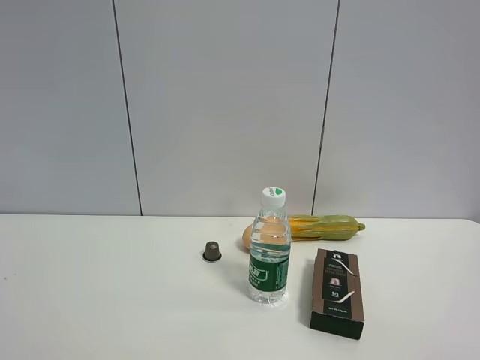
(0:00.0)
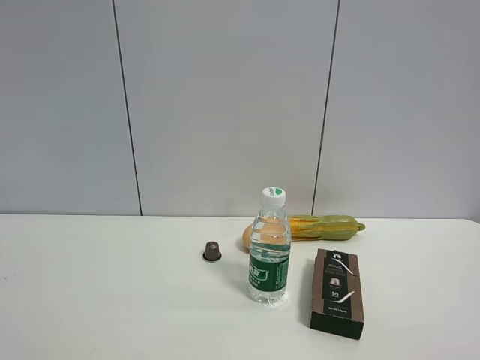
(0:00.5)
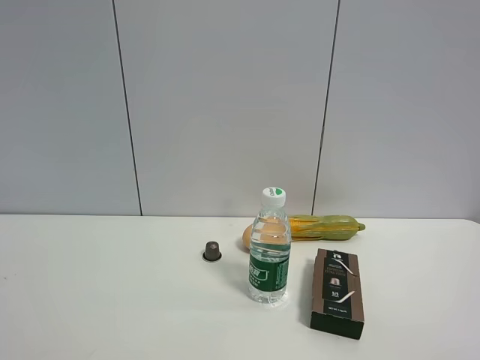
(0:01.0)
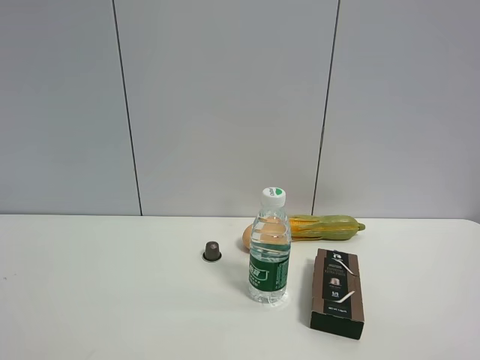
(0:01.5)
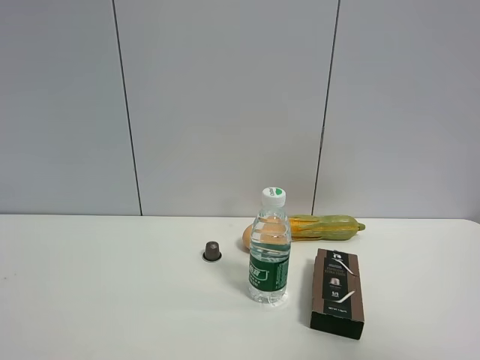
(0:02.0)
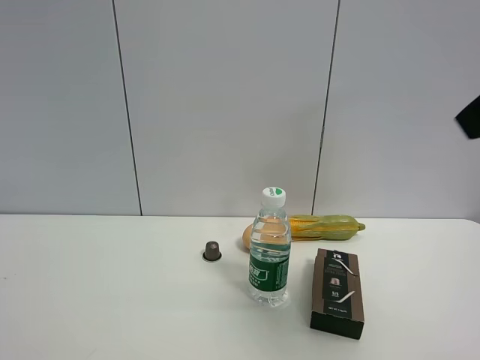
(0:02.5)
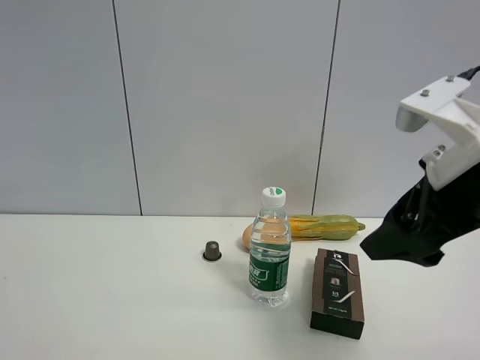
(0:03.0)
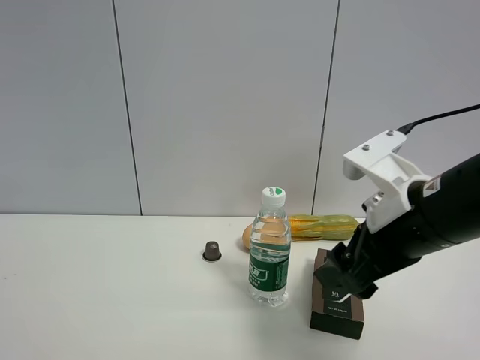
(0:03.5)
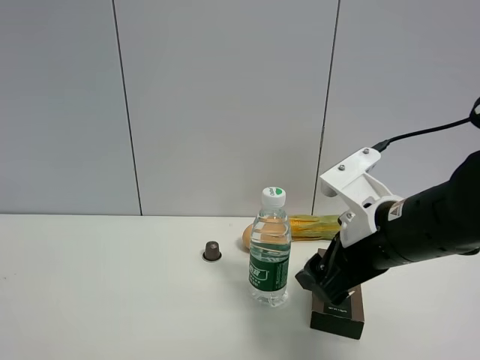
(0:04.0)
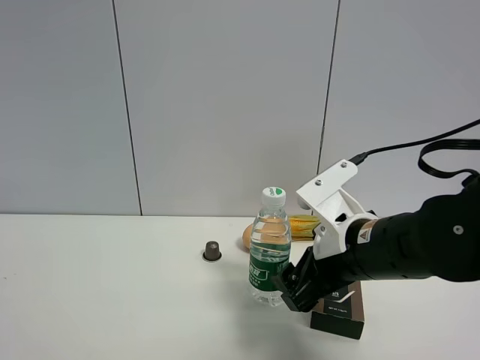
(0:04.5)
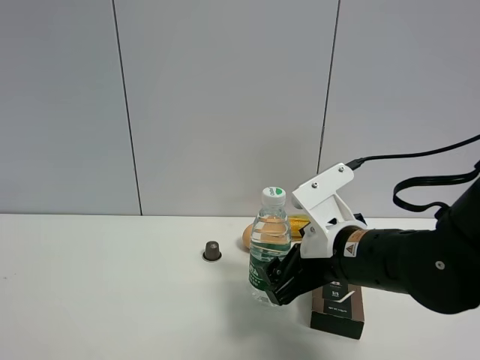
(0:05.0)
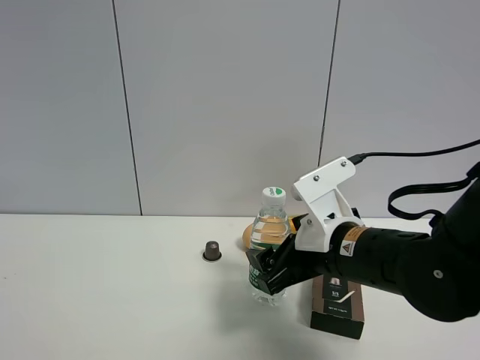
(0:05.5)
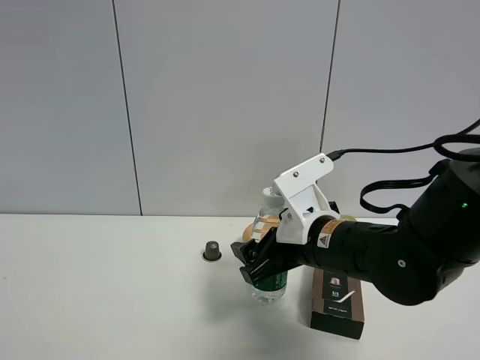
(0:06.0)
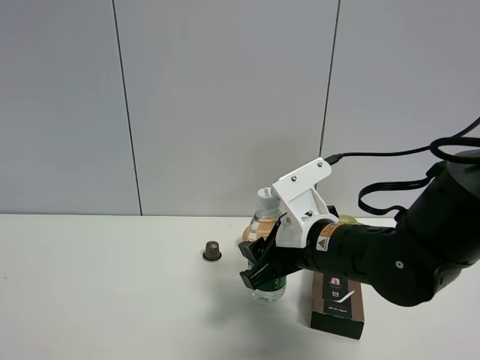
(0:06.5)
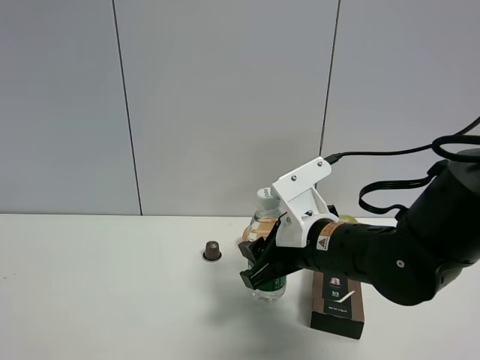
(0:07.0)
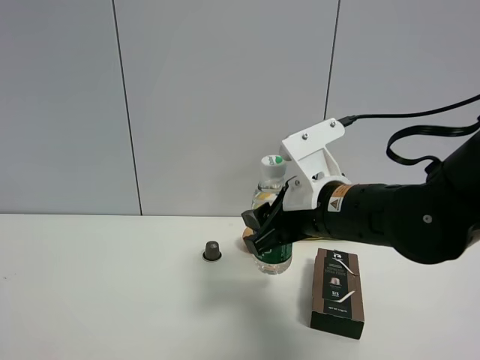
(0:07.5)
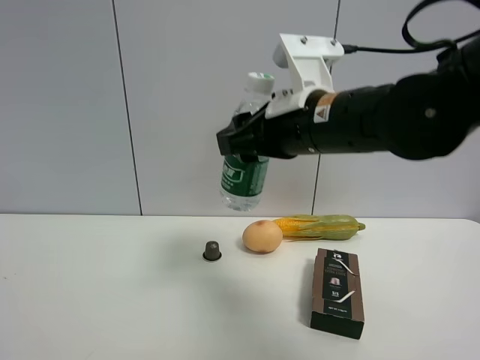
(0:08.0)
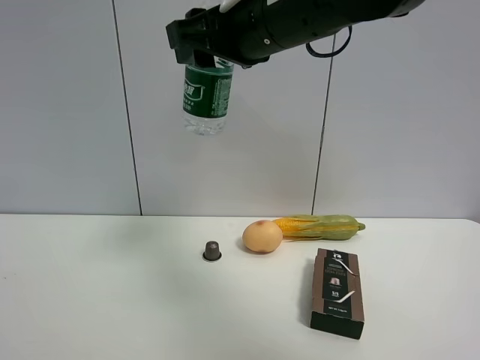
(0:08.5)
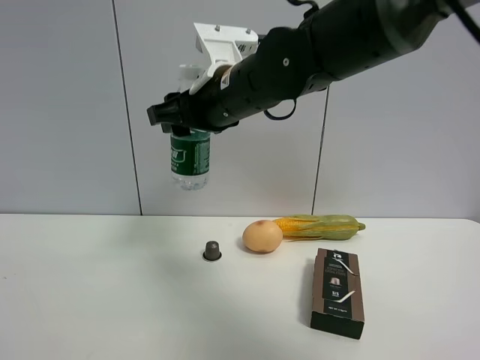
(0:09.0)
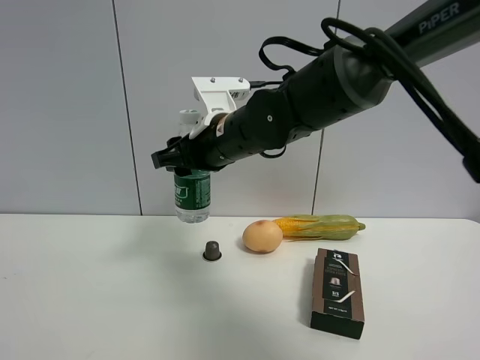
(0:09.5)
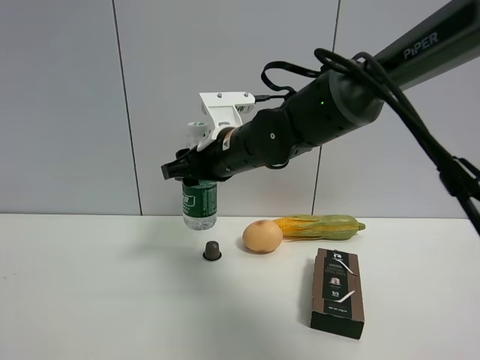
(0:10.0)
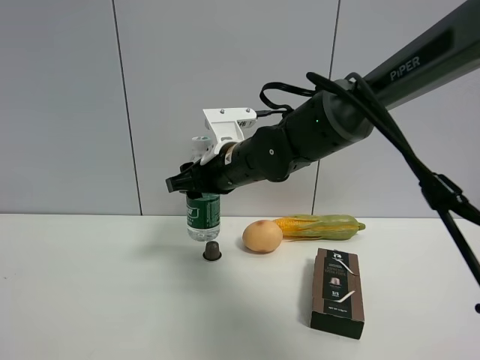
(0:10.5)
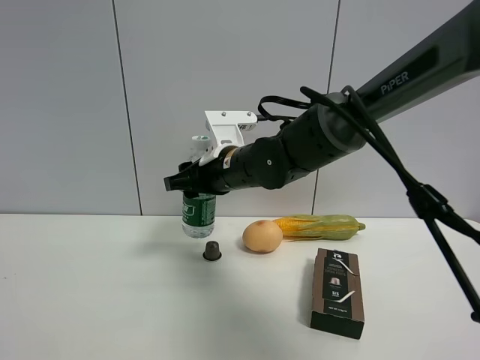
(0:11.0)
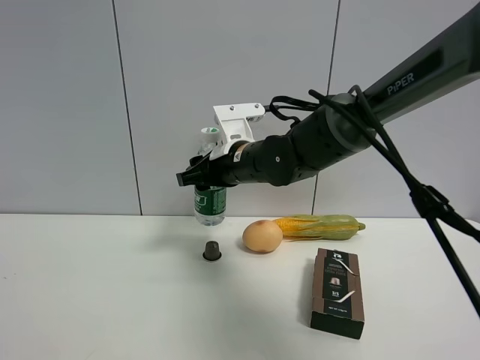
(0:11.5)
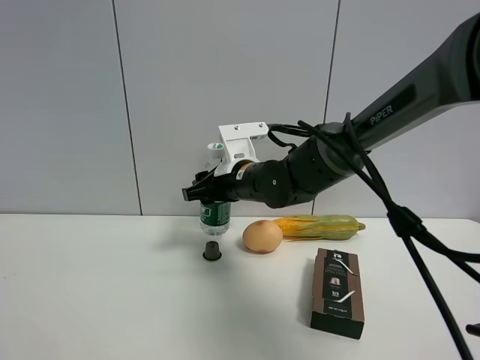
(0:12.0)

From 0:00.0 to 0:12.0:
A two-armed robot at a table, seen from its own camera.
Task of the whole recording: the gripper move the object.
Step, from 0:00.0 to 0:06.5: Grasp the YiBao mineral water with the right gripper.
From 0:00.0 to 0:02.0: The right gripper moves upward and forward, about 10 cm.
From 0:02.0 to 0:04.0: The right gripper is displaced downward, forward and to the left by about 30 cm.
From 0:04.0 to 0:06.0: The right gripper is displaced to the left by some 5 cm.
From 0:06.0 to 0:08.0: The right gripper is displaced upward by roughly 15 cm, and closes.
From 0:08.0 to 0:10.0: The right gripper moves forward, to the left and downward, approximately 15 cm.
From 0:10.0 to 0:12.0: The right gripper shifts approximately 5 cm downward.

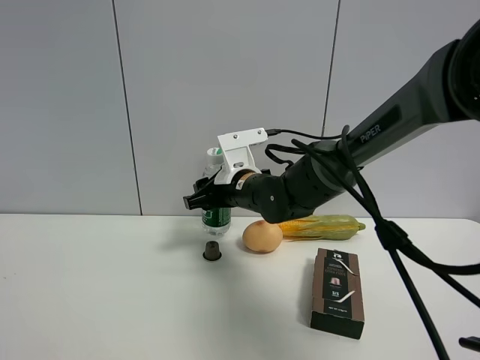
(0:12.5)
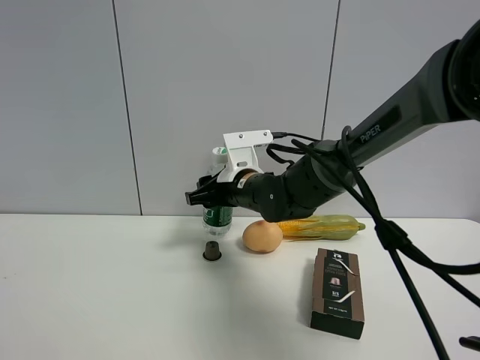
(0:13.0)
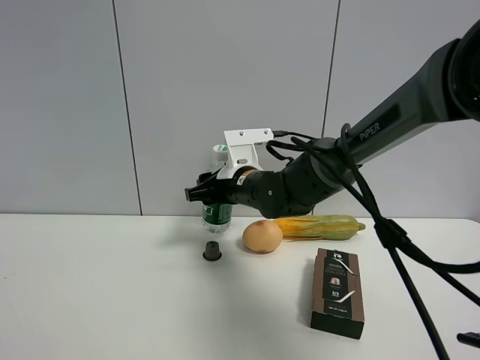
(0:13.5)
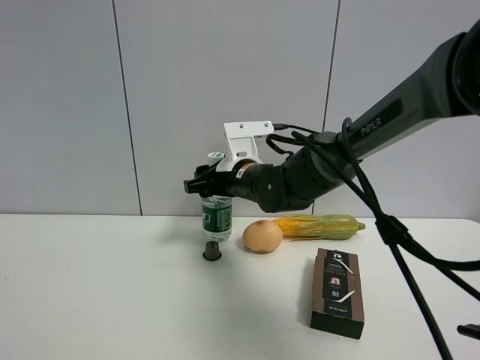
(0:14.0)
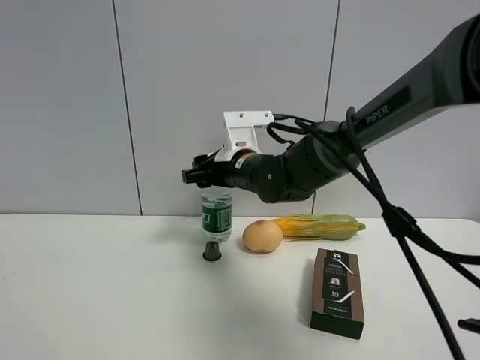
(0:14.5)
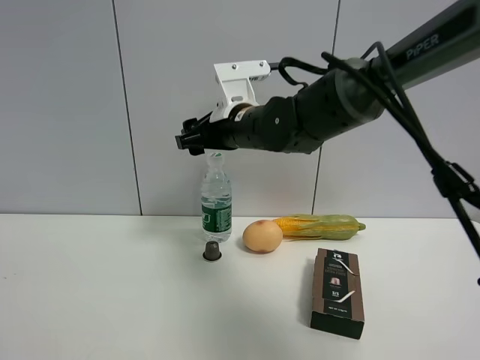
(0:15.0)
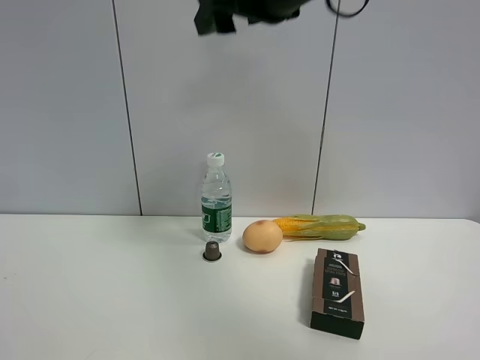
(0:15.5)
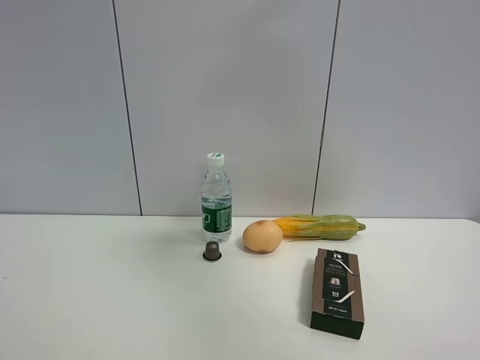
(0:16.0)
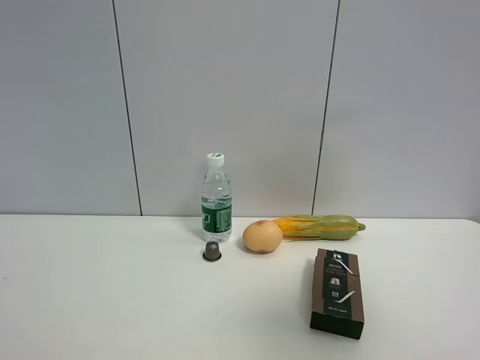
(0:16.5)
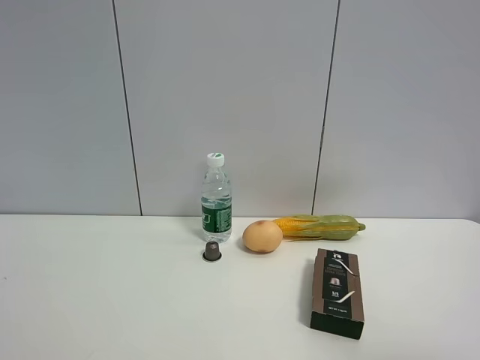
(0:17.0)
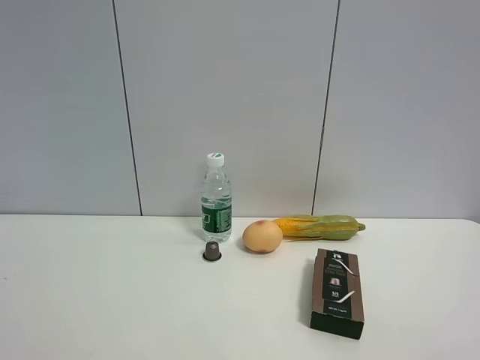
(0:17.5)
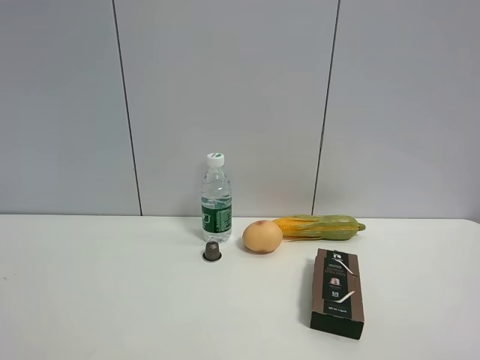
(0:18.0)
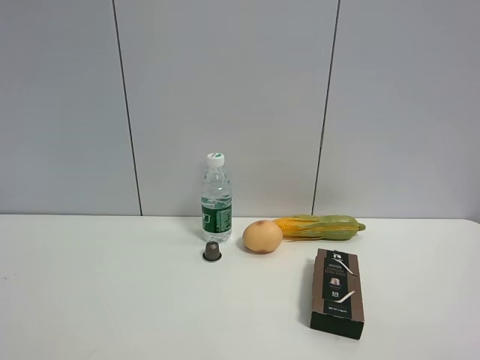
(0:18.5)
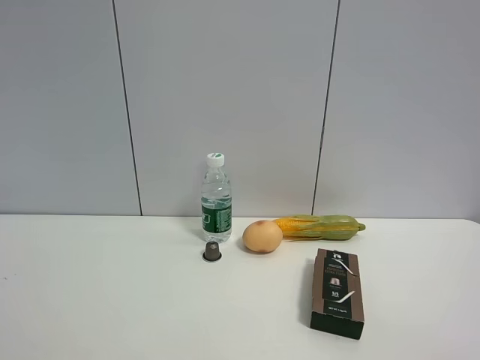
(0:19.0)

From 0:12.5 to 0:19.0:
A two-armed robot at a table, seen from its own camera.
Task of the whole recording: the gripper move the object.
Step, from 0:12.5 to 0:14.5: Place the YiBao mineral water on the table with the right gripper.
From 0:12.5 to 0:14.5: The grippers stay close to where they were, moving slightly.
From 0:14.5 to 0:17.0: The right gripper shifts some 50 cm backward and to the right, and opens its fingers.

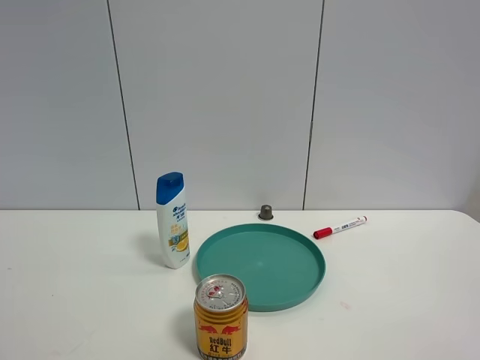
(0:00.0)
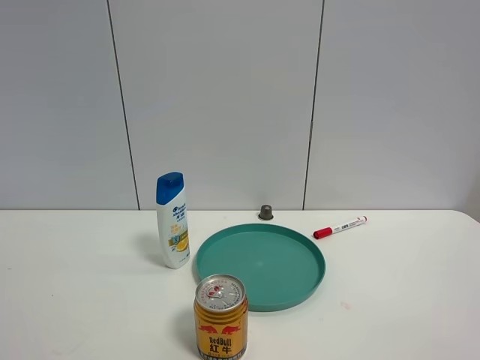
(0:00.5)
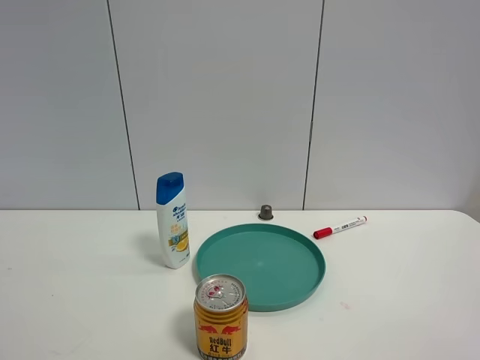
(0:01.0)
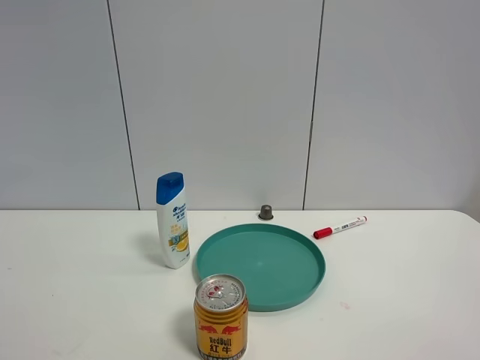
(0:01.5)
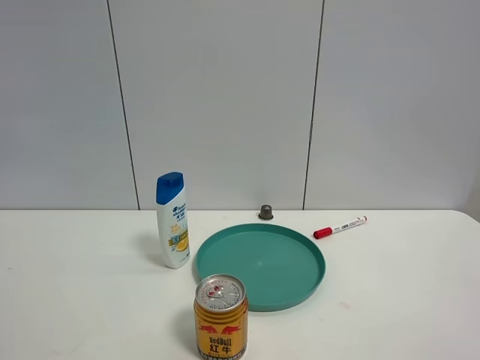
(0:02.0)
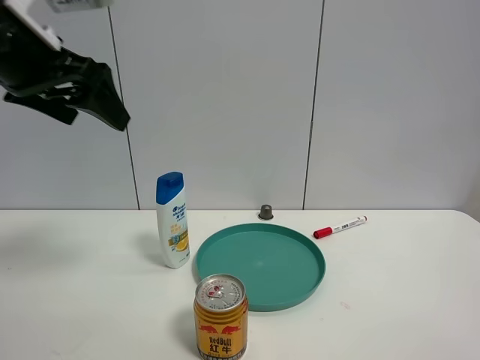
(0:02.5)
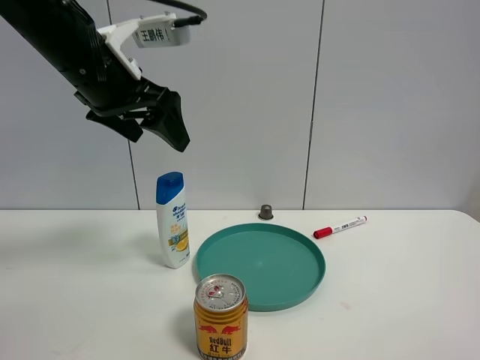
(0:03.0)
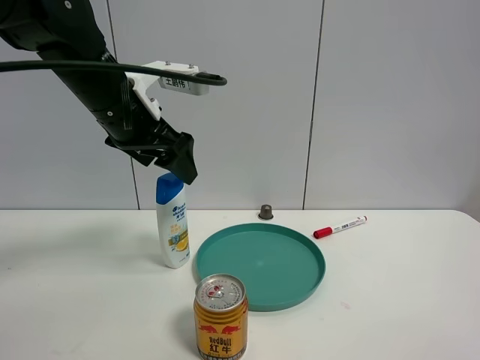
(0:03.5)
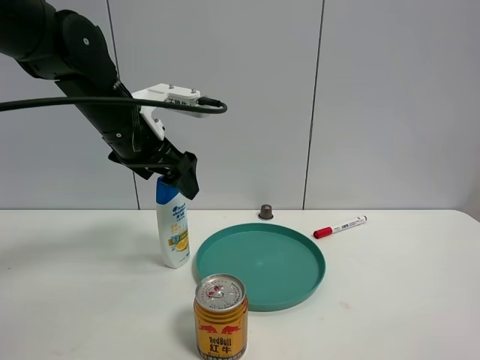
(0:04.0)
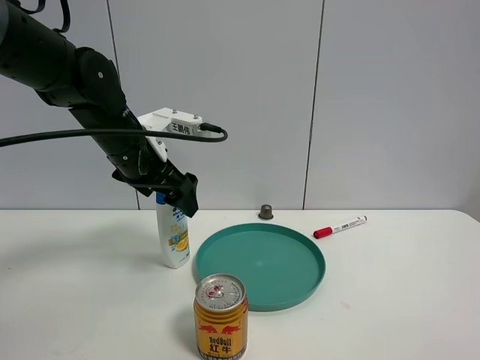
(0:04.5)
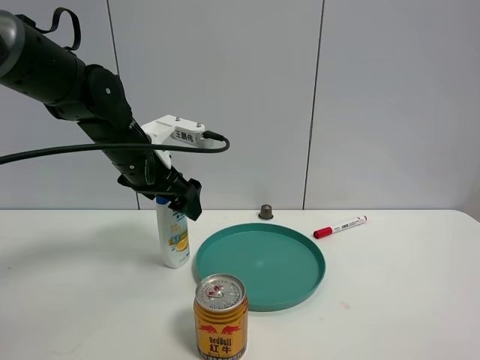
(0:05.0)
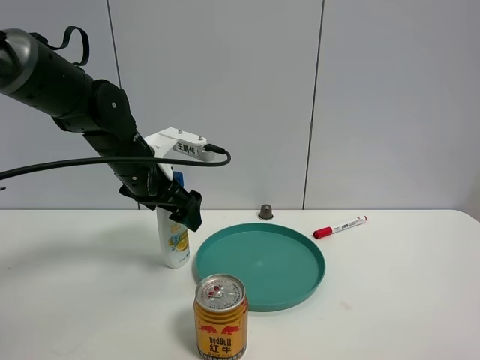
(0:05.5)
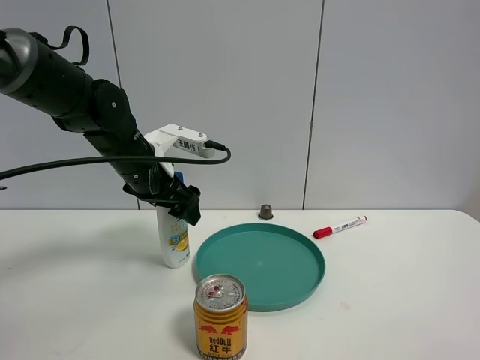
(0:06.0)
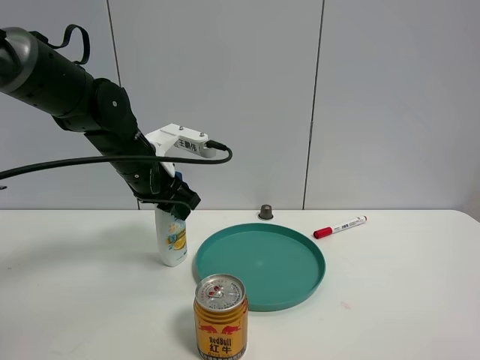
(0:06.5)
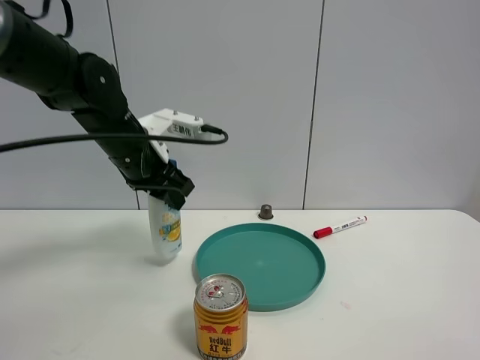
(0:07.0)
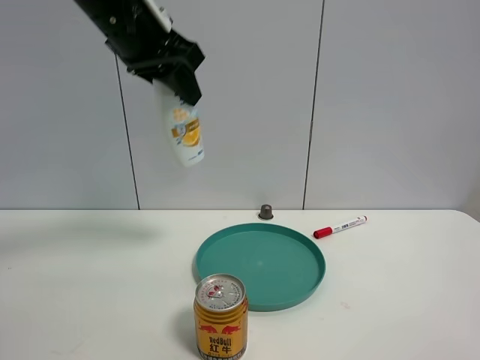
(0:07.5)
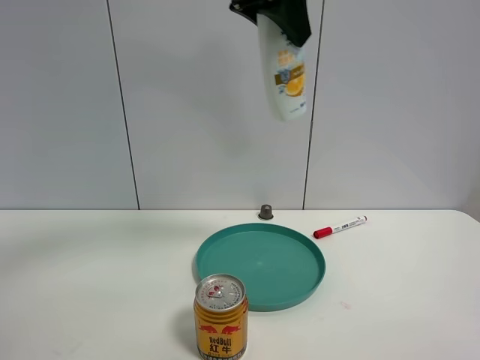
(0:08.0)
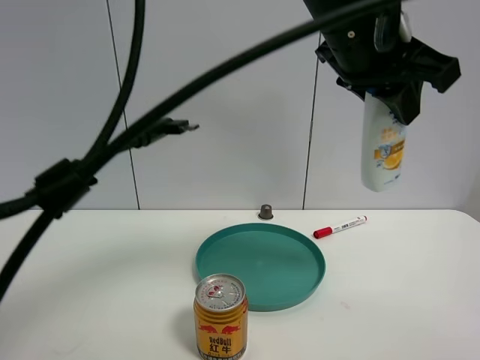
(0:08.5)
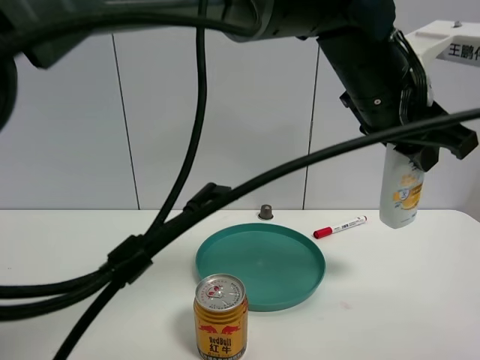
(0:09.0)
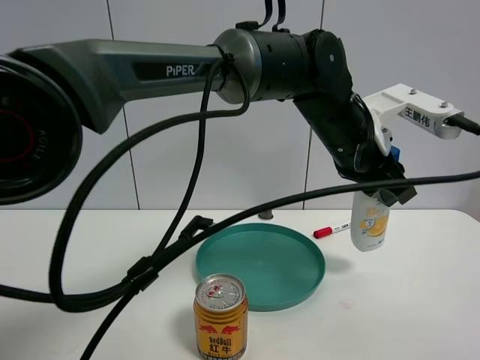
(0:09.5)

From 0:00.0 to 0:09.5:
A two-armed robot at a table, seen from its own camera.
Task of the whole recording: the gripper move the object.
Step, from 0:00.0 to 0:06.5: Grasp the shampoo with the left gripper.
From 0:02.0 to 0:04.0: The left gripper heads forward, to the right and downward, covering about 35 cm.
From 0:04.0 to 0:05.5: The left gripper moves downward, approximately 5 cm.
From 0:05.5 to 0:07.5: The left gripper moves upward, roughly 20 cm, and closes its fingers.
From 0:07.5 to 0:09.5: The left gripper travels to the right and downward by approximately 30 cm.
